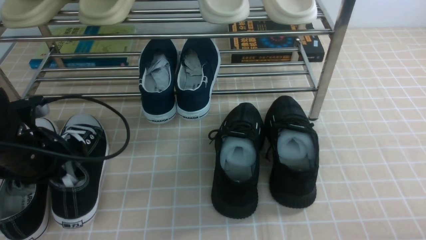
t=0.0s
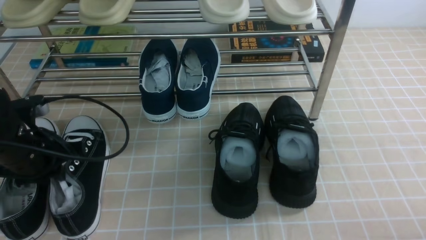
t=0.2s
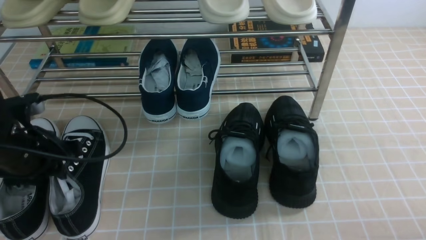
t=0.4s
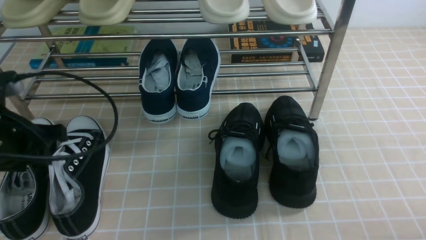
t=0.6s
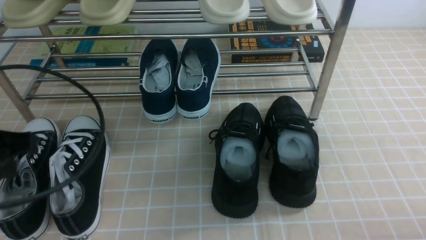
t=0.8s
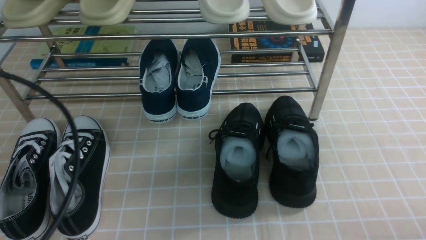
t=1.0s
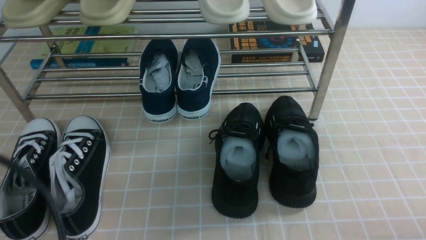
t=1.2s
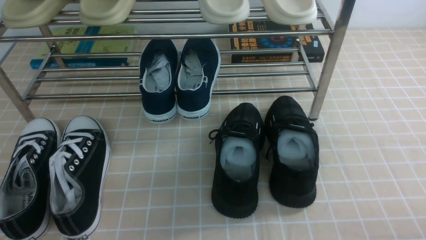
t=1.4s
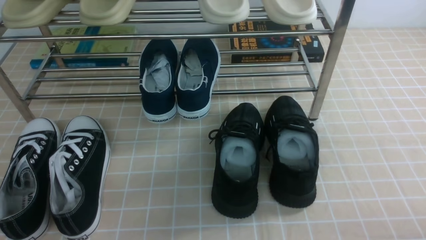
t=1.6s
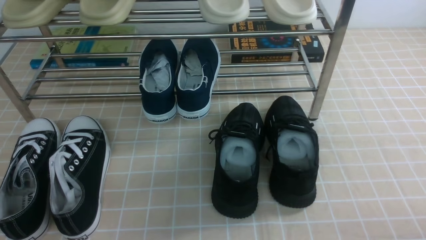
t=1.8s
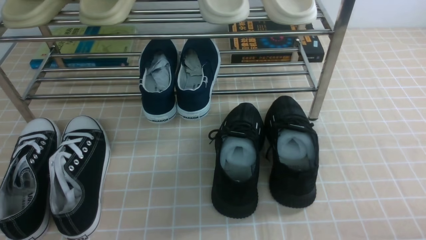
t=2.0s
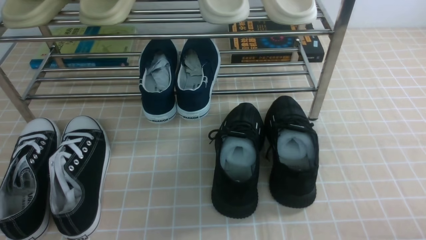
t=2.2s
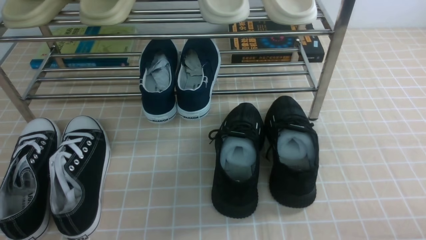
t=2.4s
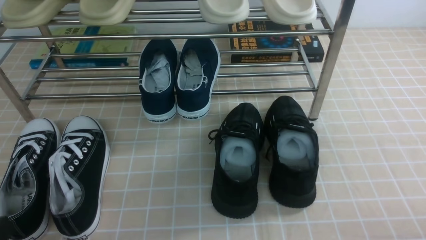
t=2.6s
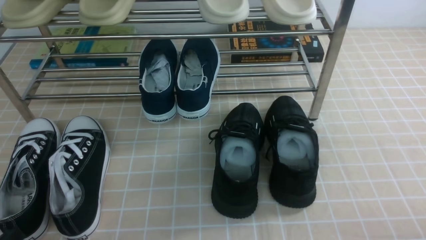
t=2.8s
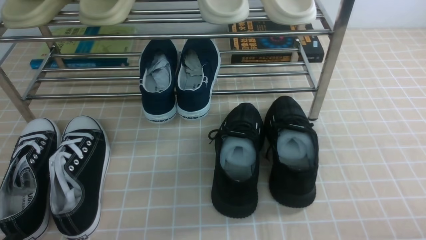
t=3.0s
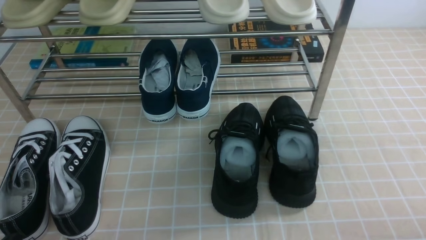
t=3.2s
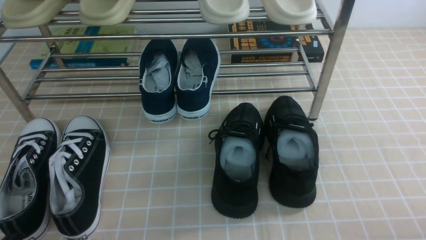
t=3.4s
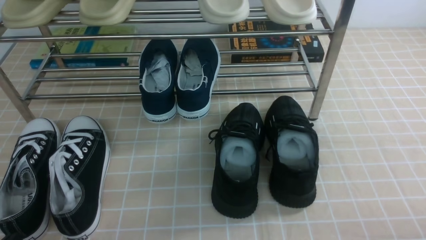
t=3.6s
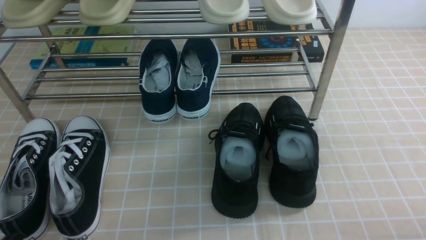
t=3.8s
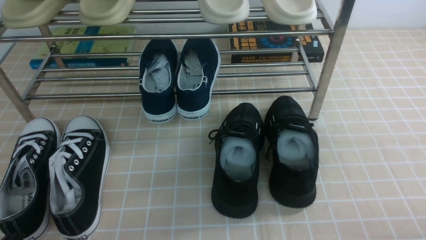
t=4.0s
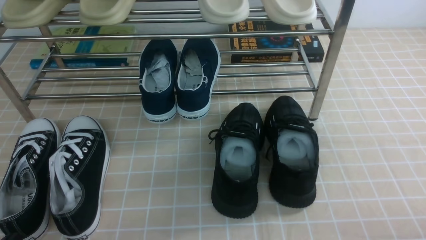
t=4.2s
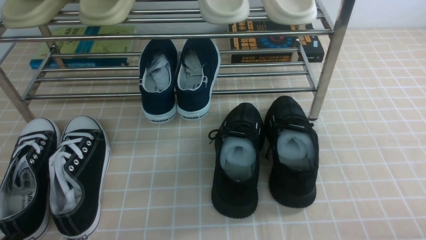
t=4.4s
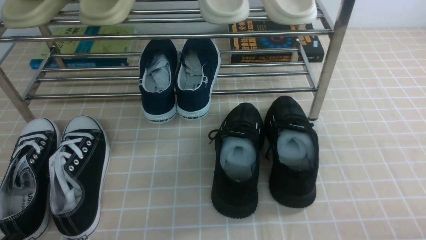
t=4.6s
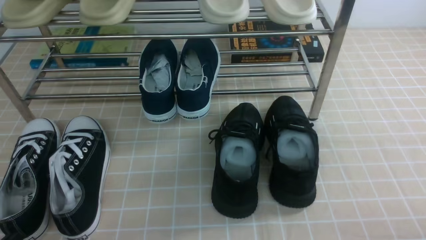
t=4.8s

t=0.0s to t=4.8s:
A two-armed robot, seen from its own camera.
t=0.0s to t=1.6s: The left gripper shifts roughly 25 cm backward, and opens and closes again.
t=3.2s to t=4.8s: The two grippers keep their place.
